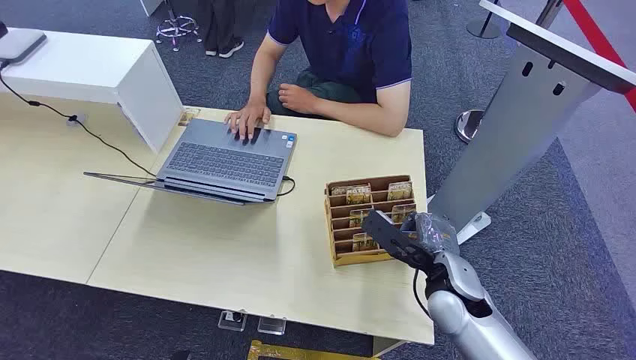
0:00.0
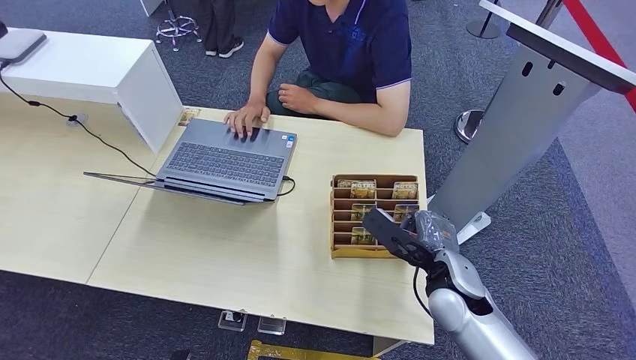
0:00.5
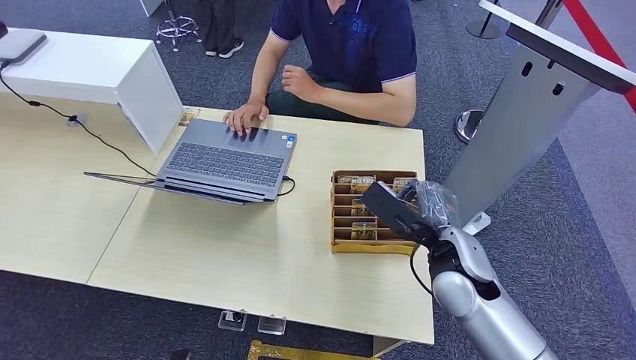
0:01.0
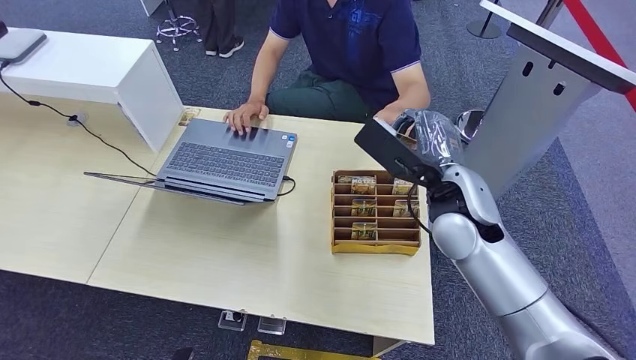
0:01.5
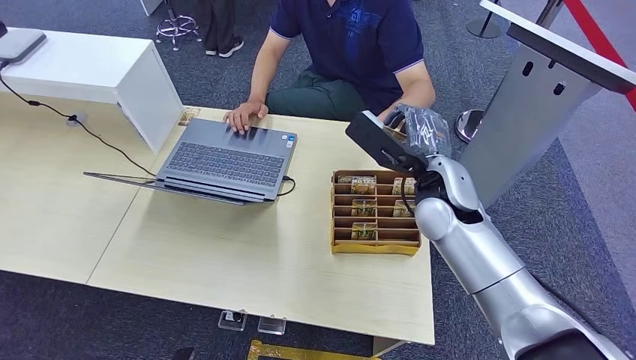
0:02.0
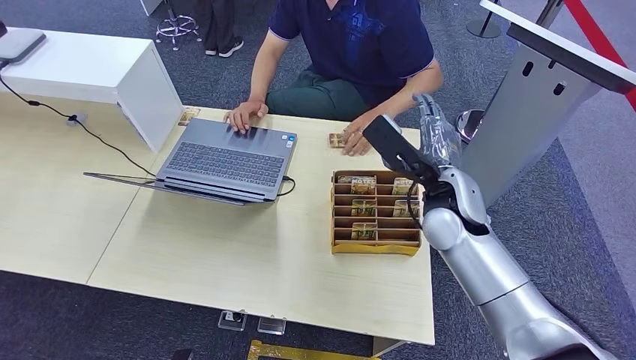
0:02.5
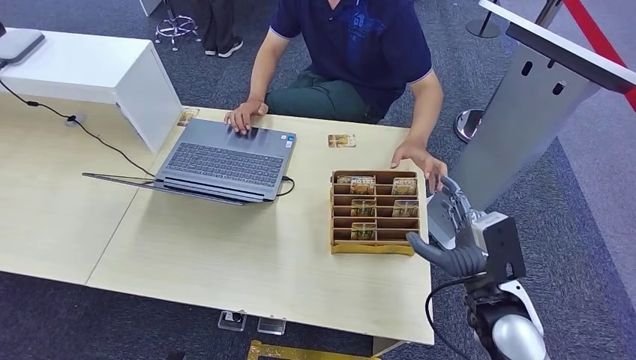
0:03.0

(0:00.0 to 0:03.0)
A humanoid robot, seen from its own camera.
Step, 0:00.0 - 0:01.0: Pick up the room card from the card holder.
Step, 0:01.5 - 0:03.0: Hand the room card to the target.
0:01.5 - 0:03.0: The right hand heads backward, to the right and downward, covering about 30 cm.
